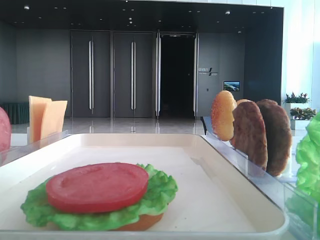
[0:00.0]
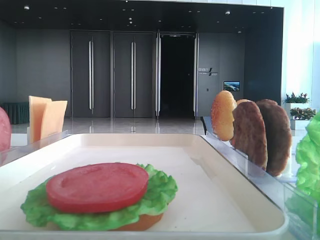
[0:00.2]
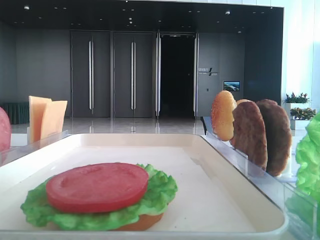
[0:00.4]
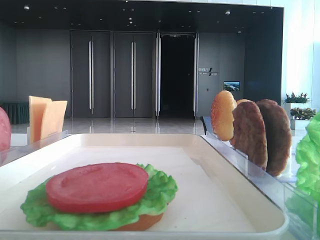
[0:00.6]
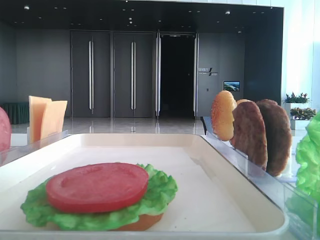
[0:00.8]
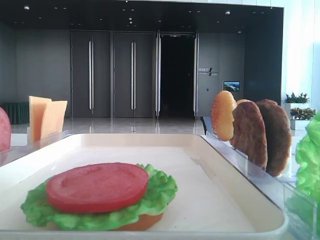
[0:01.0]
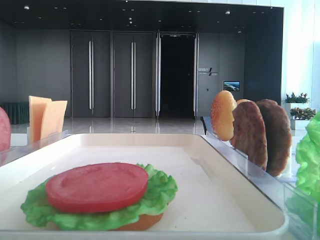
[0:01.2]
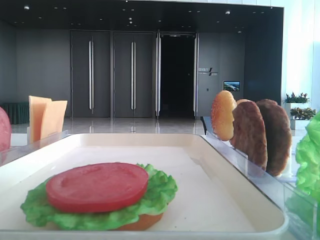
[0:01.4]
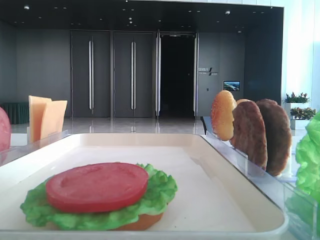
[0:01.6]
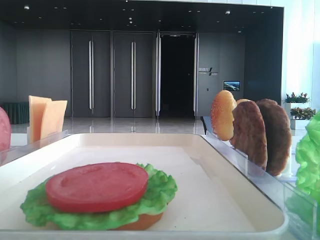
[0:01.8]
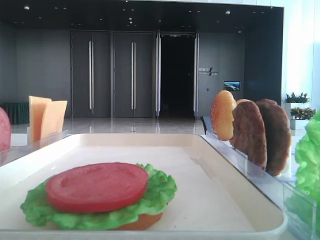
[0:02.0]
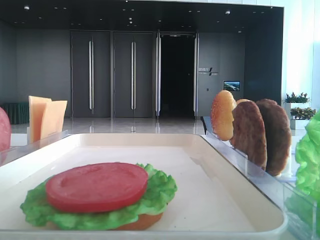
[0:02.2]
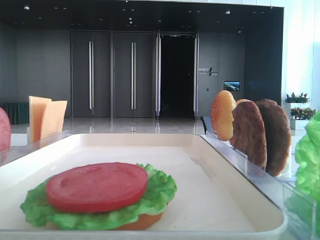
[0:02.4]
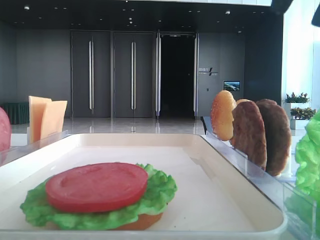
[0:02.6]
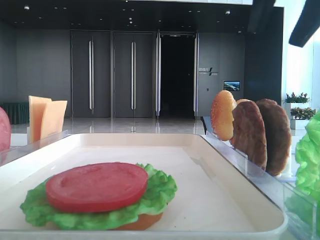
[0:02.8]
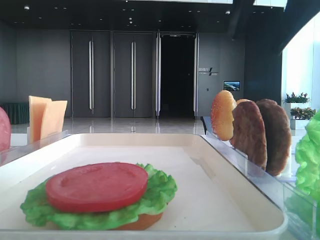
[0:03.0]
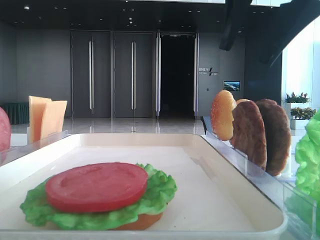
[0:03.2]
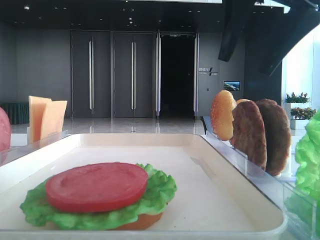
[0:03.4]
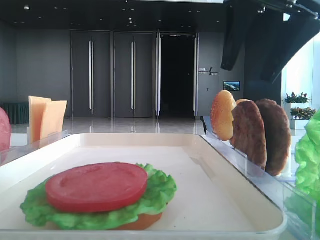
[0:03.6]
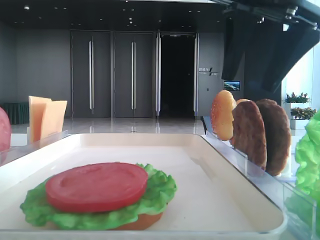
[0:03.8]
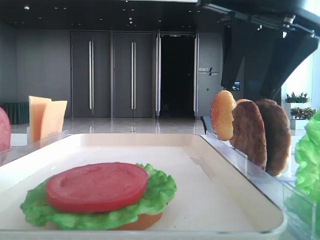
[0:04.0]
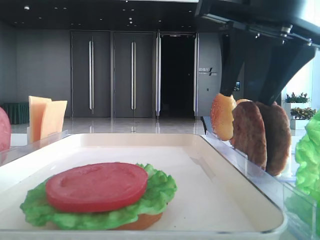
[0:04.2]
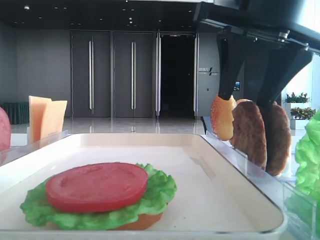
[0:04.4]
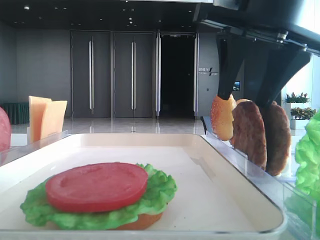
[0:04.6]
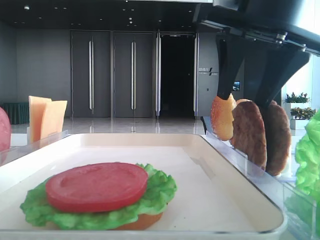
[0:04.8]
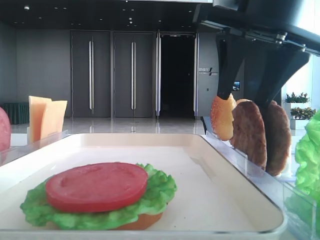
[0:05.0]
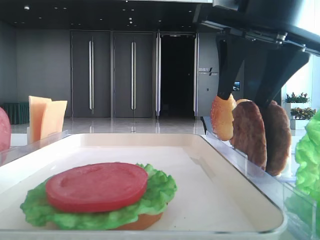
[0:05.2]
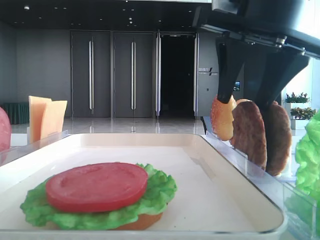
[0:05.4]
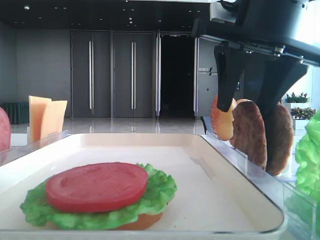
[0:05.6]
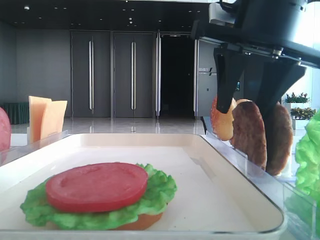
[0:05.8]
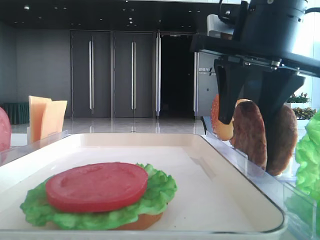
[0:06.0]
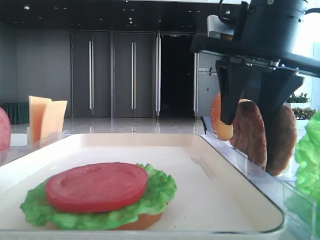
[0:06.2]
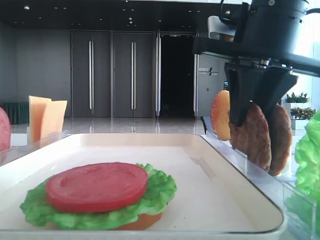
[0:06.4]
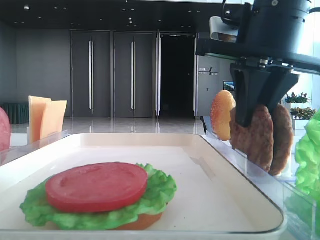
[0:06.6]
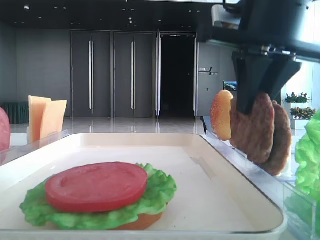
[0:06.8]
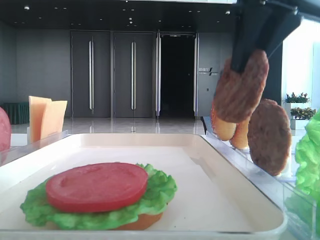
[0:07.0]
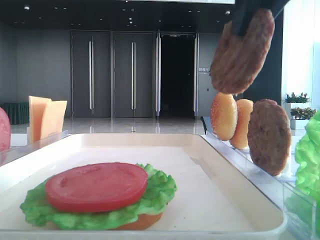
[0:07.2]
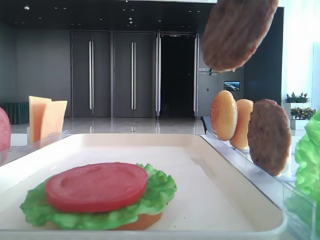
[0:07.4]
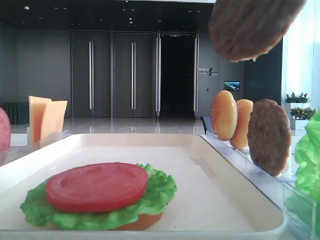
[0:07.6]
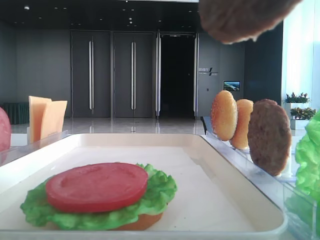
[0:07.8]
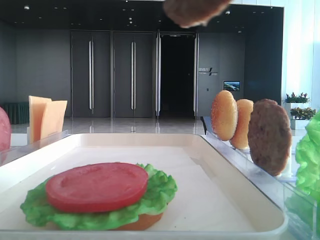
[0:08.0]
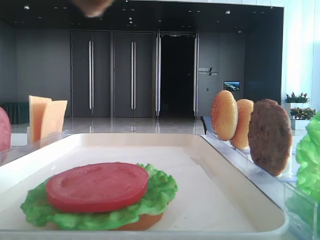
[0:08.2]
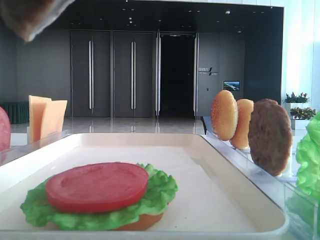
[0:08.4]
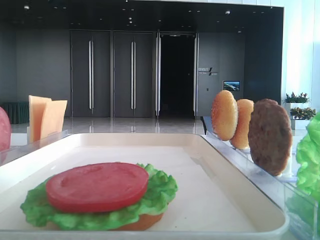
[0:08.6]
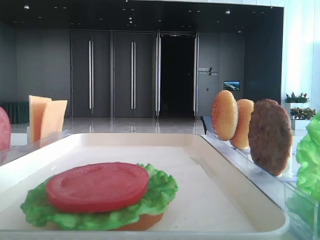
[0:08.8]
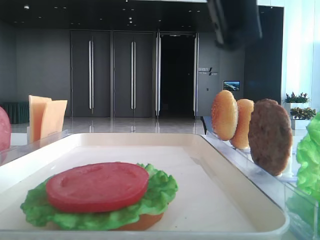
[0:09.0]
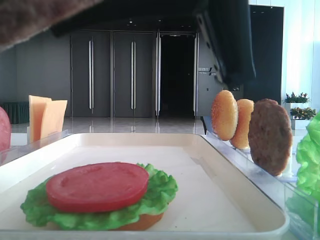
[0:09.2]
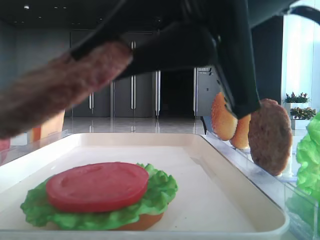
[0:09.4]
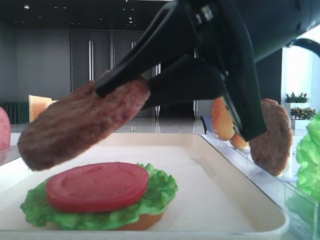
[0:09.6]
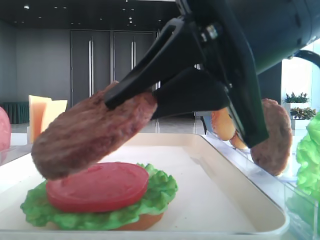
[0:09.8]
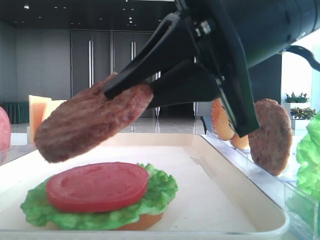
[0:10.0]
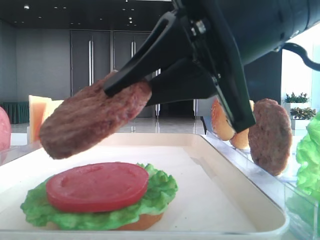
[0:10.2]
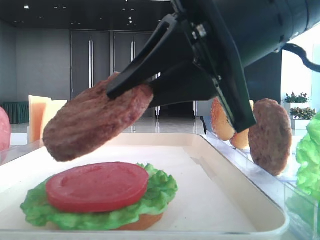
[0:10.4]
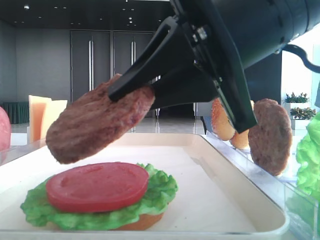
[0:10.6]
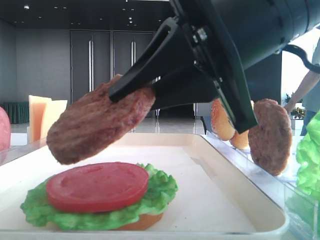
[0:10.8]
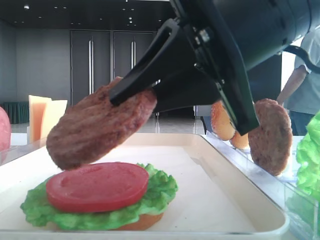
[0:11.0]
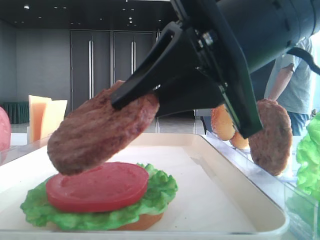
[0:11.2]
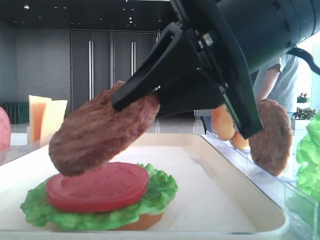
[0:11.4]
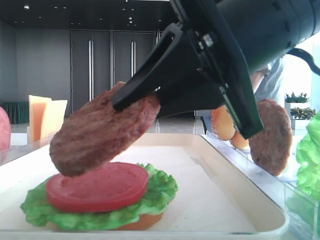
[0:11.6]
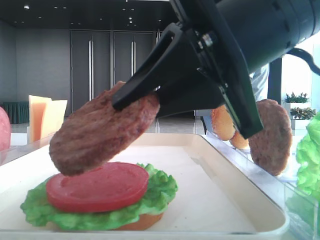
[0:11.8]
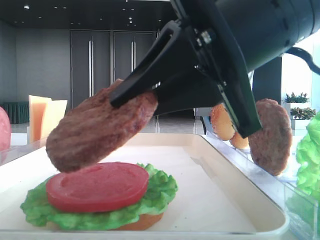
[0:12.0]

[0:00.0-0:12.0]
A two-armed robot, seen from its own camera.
Step, 0:00.0 to 0:06.4: Grab the patty with the right hand.
0:01.6 to 0:03.0: The right gripper shifts roughly 15 cm to the left and forward, and opens up.
0:03.0 to 0:04.4: The right gripper travels downward by roughly 5 cm.
0:04.4 to 0:06.0: The grippers make only small movements.
0:06.0 to 0:07.6: The right gripper travels backward and upward by some 20 cm, and closes its fingers.
0:07.6 to 0:09.0: The right gripper travels downward by about 10 cm.
0:09.0 to 0:10.4: The right gripper shifts some 10 cm forward and downward.
0:10.4 to 0:12.0: Both grippers stay put.

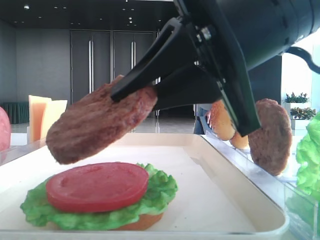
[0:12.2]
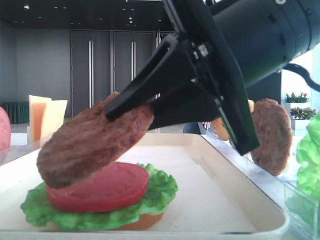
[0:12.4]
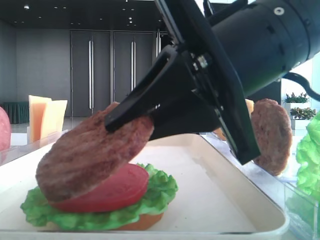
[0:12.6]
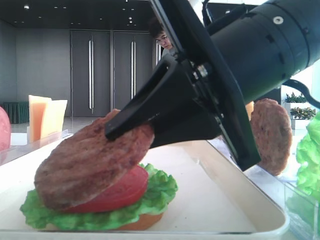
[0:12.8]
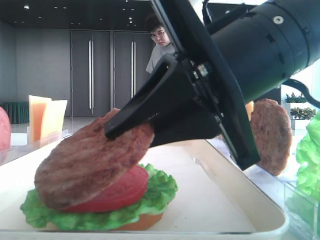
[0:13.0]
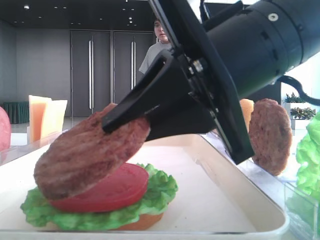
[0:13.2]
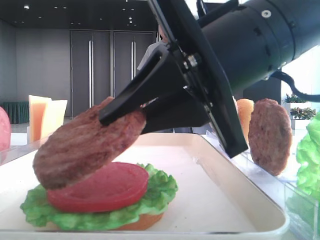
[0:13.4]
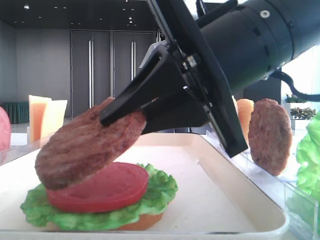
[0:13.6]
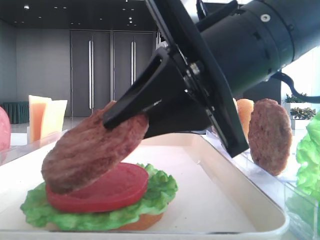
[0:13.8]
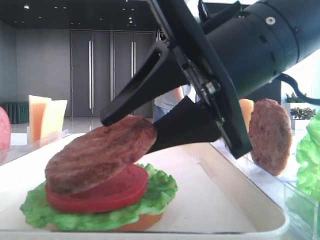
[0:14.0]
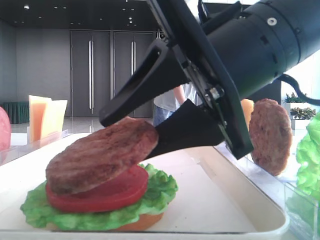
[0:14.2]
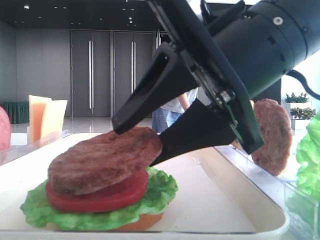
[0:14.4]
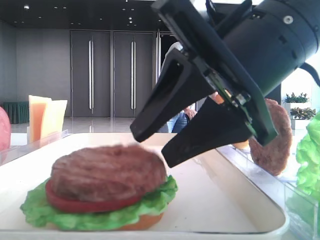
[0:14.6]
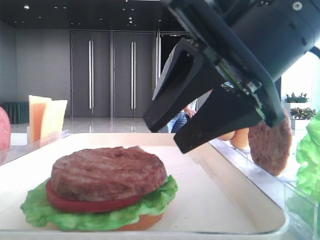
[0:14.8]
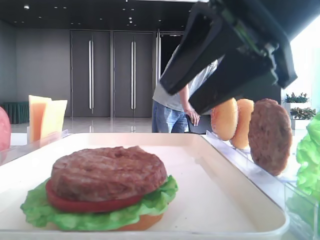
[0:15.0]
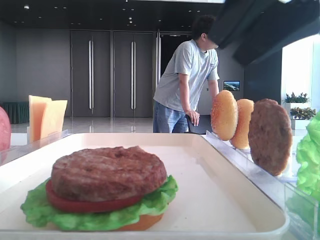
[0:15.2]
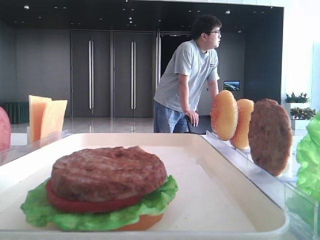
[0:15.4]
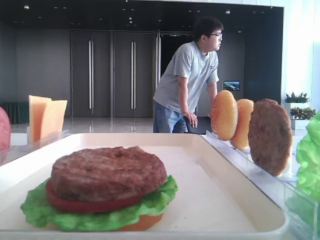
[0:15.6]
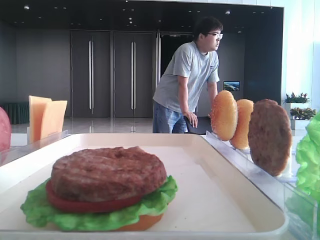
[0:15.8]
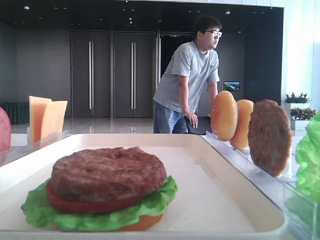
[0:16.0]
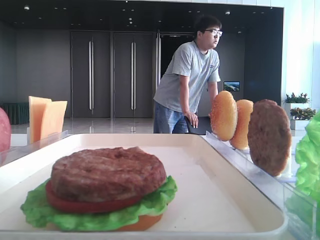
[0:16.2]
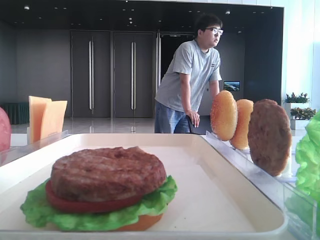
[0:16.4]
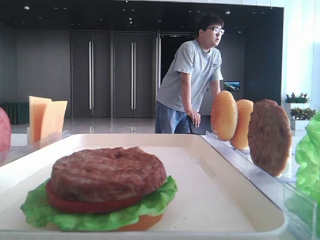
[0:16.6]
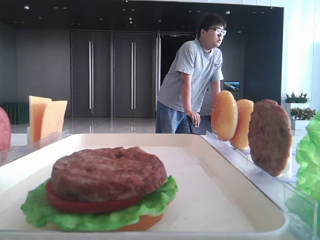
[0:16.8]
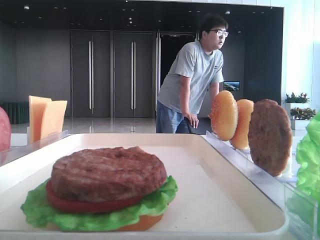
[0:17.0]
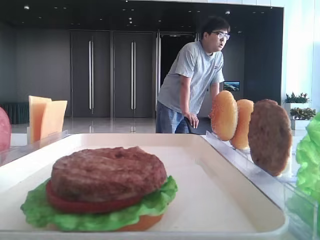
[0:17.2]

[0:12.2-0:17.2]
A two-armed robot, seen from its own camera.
Step, 0:12.2 to 0:14.4: Place the patty on the tomato slice with the right hand.
0:13.8 to 0:15.6: The right gripper travels to the right and upward by roughly 25 cm, and opens its fingers.
0:15.6 to 0:17.2: The right gripper heads backward, covering about 15 cm.

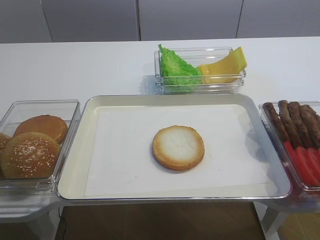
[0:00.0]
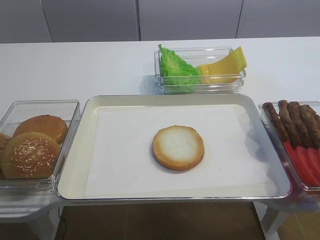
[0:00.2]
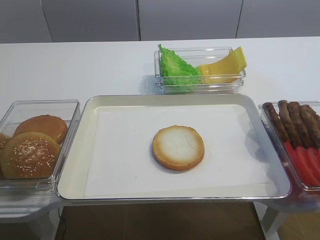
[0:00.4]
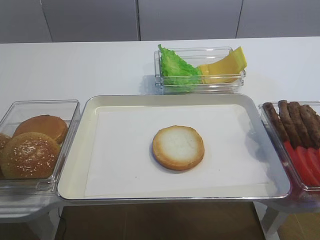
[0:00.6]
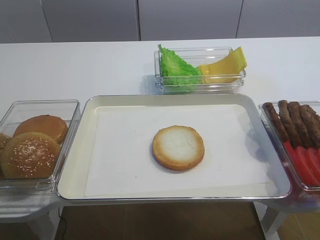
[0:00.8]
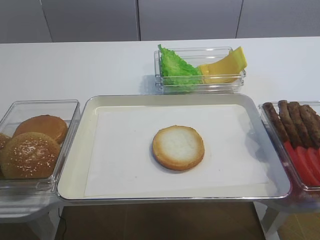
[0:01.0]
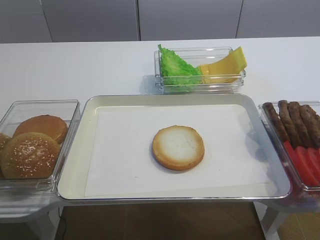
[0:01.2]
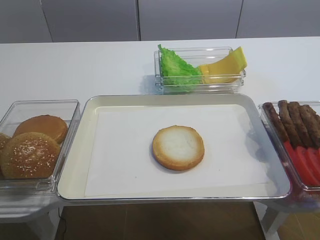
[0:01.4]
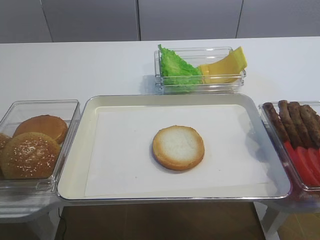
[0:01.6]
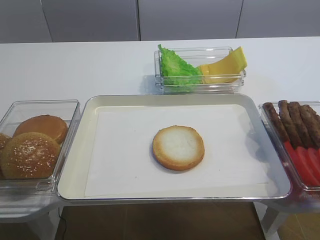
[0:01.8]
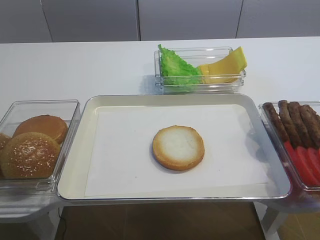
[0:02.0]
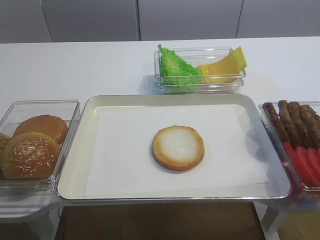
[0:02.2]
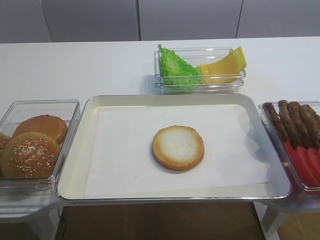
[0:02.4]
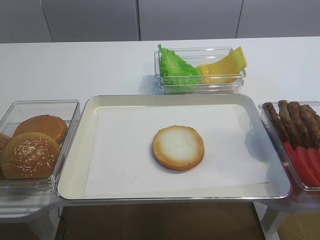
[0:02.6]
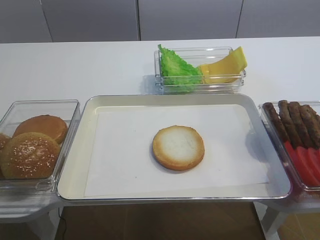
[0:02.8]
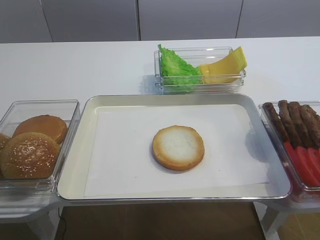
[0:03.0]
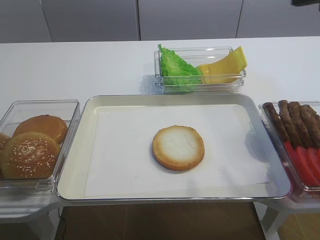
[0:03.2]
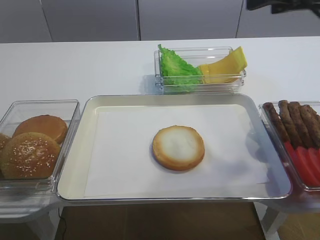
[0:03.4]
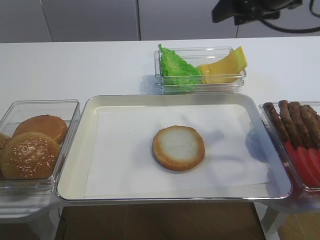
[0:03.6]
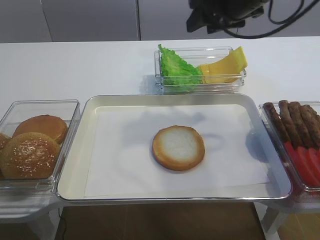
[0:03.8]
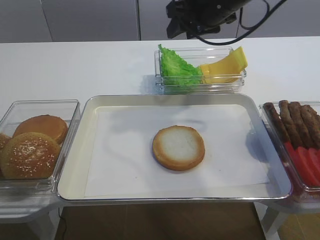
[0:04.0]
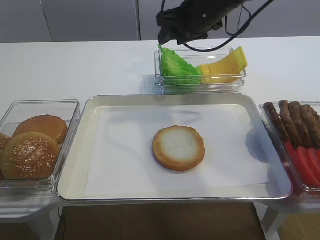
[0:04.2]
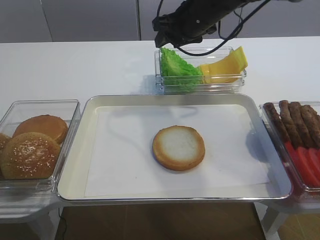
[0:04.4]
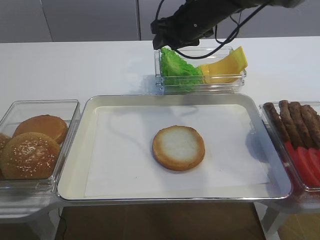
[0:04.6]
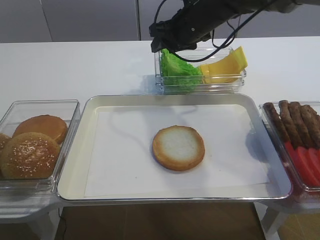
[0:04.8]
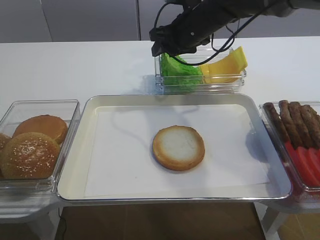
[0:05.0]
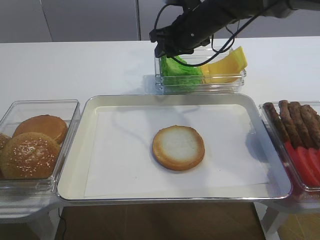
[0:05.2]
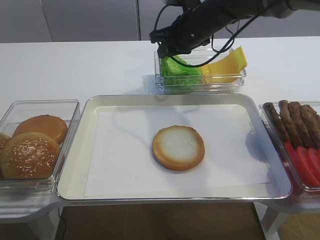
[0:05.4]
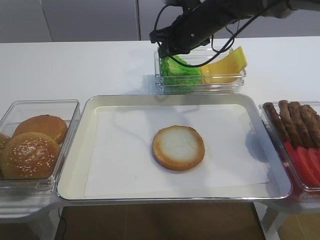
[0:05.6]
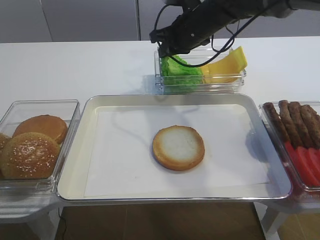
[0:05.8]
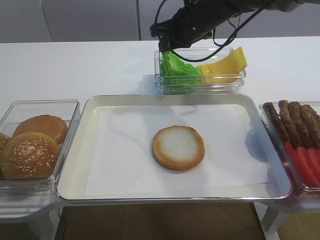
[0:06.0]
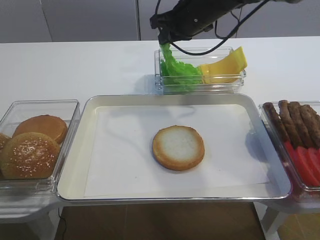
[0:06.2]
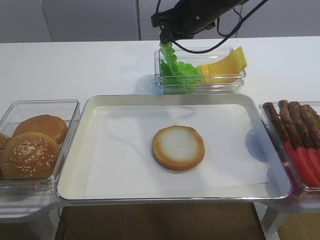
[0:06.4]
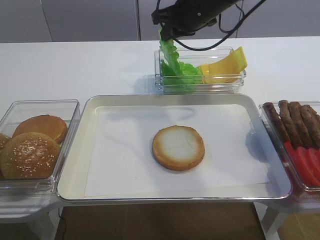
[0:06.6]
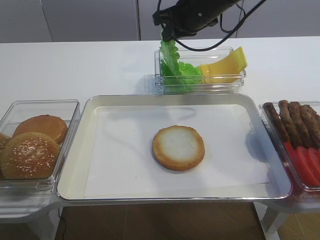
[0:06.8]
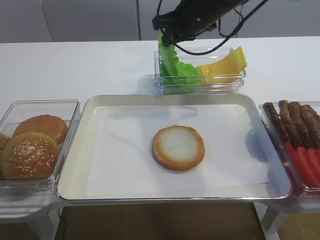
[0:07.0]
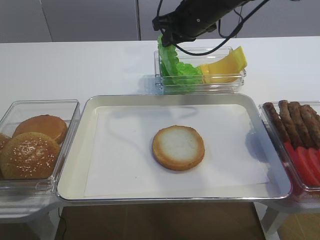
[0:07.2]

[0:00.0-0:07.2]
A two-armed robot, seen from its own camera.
0:02.8 to 0:04.4: The right gripper goes about 40 cm forward and to the left.
0:04.4 to 0:05.8: The right gripper closes.
0:05.8 to 0:07.2: The grippers make only small movements.
